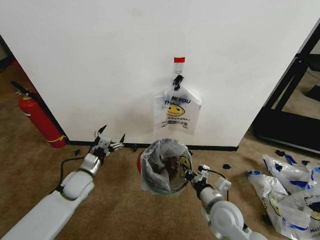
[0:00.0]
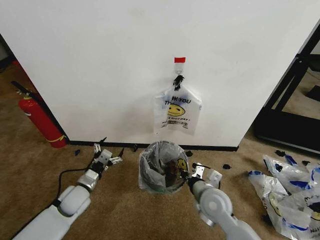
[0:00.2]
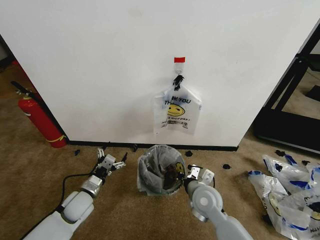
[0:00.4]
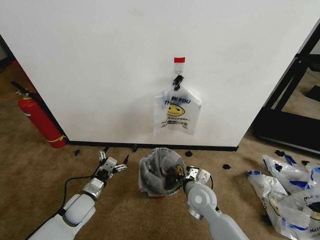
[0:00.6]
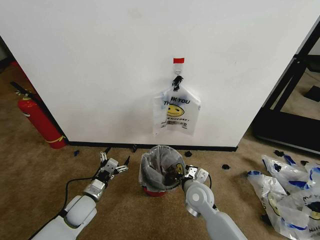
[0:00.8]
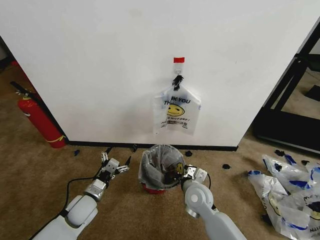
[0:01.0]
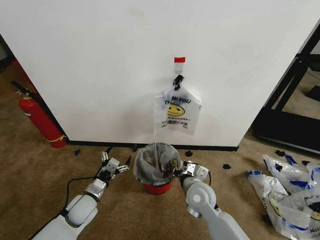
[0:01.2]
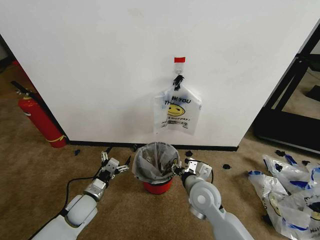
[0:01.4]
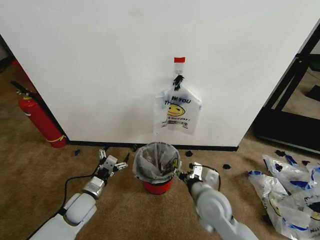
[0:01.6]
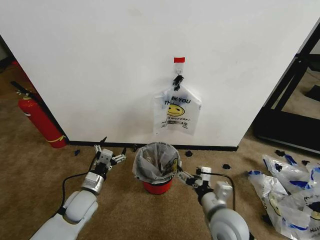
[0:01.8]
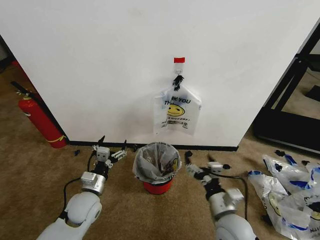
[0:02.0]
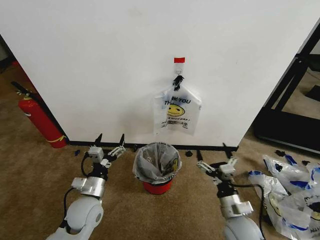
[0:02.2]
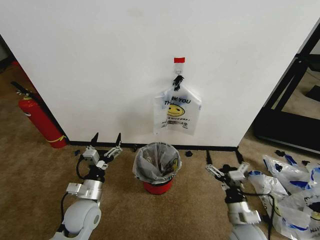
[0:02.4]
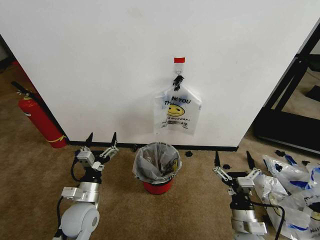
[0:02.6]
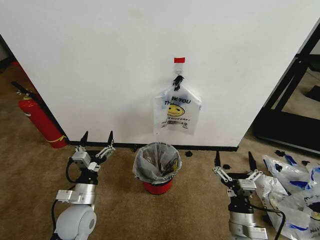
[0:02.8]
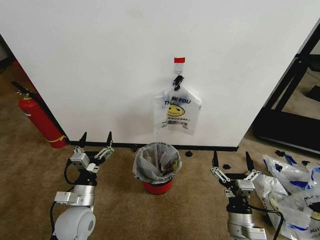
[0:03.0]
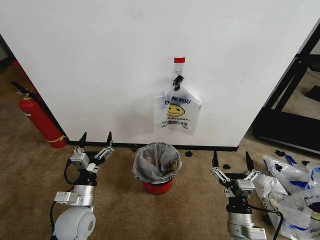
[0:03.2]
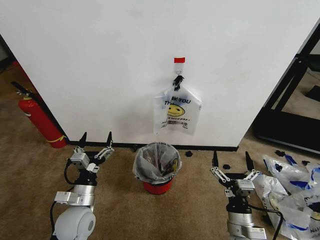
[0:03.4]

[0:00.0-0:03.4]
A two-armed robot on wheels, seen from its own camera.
Task of the whole recording: Pick up the garbage bag from the wall and place it over the trash bin.
0:00.0 to 0:01.6: The right gripper shifts by roughly 5 cm, and opens up, while the left gripper shifts about 5 cm backward.
0:01.6 to 0:03.4: The right gripper shifts roughly 15 cm backward, to the right and downward. Meanwhile the left gripper is displaced backward and upward by some 10 cm.

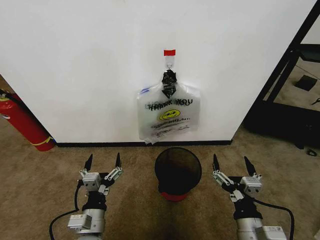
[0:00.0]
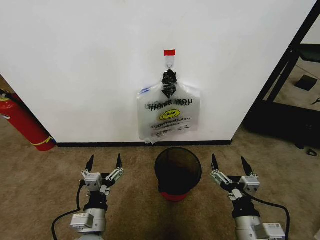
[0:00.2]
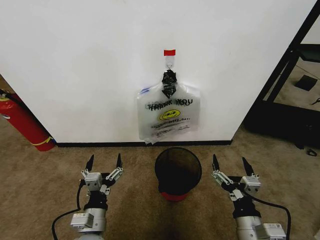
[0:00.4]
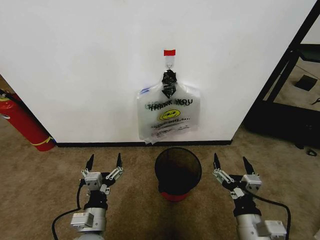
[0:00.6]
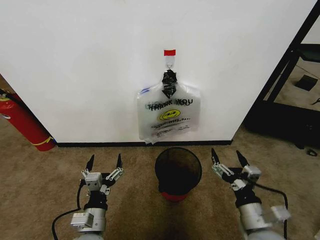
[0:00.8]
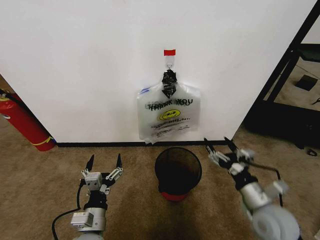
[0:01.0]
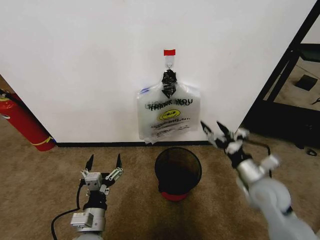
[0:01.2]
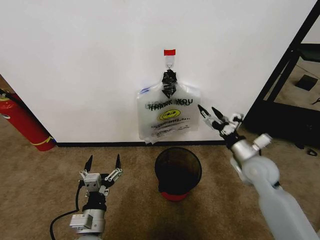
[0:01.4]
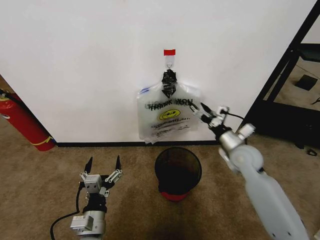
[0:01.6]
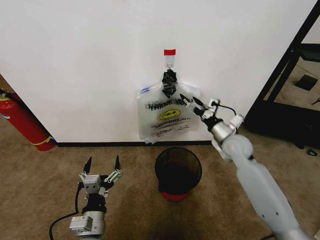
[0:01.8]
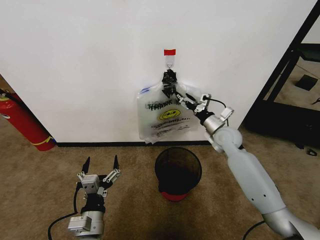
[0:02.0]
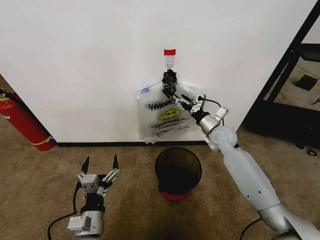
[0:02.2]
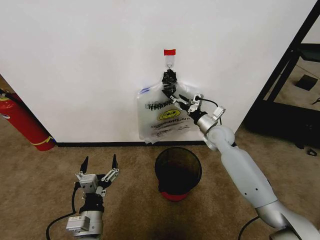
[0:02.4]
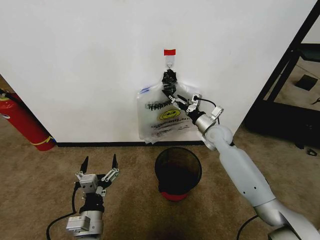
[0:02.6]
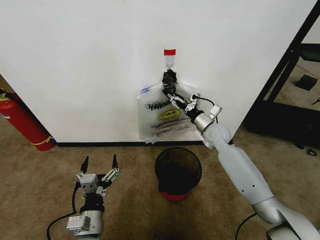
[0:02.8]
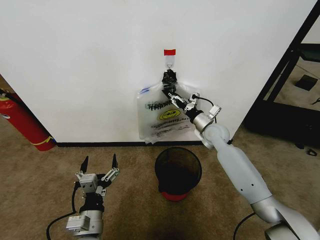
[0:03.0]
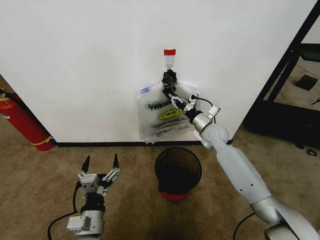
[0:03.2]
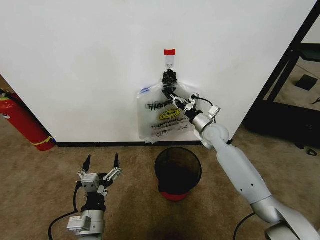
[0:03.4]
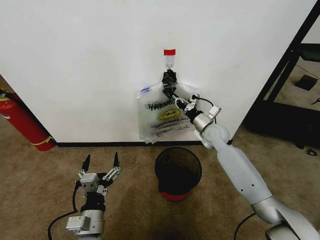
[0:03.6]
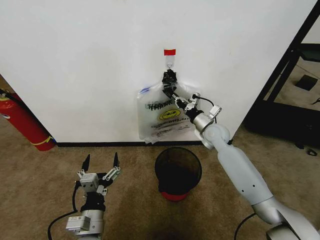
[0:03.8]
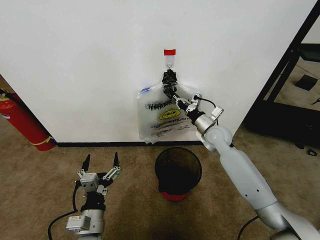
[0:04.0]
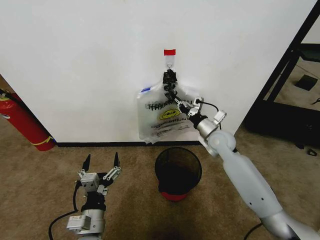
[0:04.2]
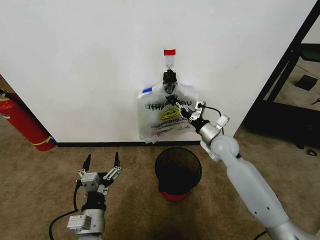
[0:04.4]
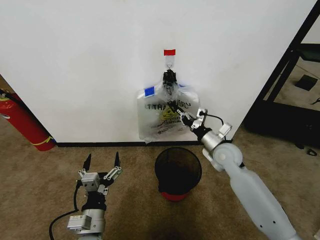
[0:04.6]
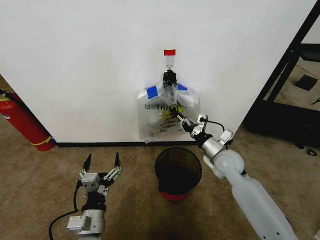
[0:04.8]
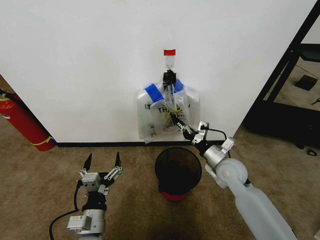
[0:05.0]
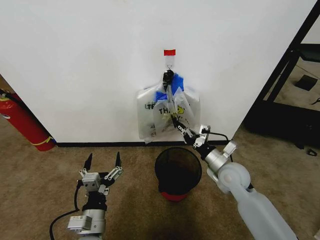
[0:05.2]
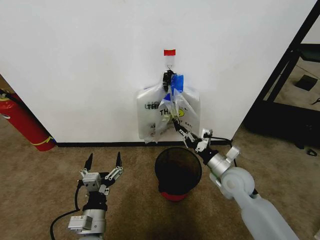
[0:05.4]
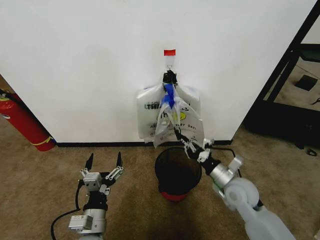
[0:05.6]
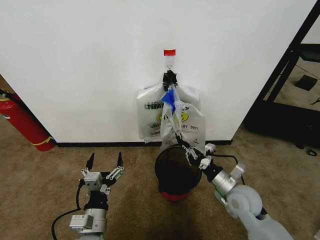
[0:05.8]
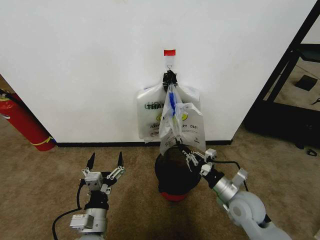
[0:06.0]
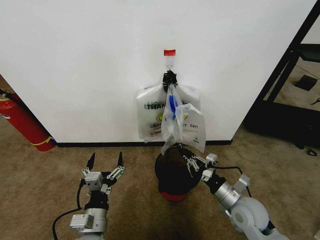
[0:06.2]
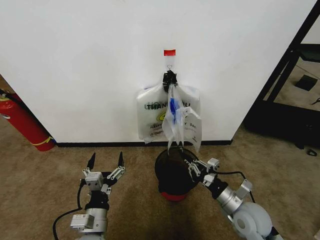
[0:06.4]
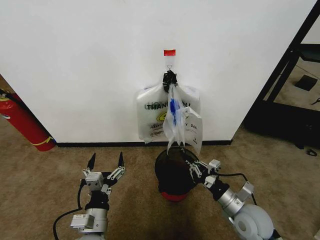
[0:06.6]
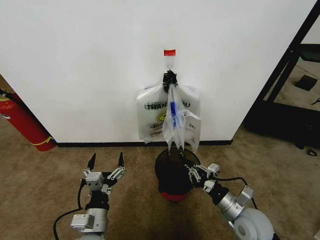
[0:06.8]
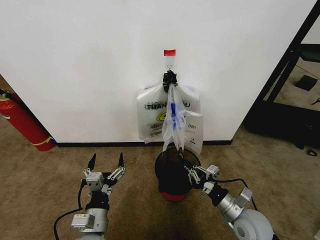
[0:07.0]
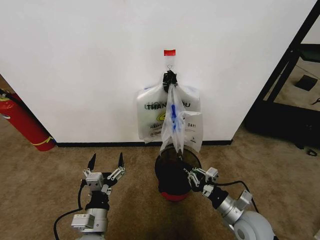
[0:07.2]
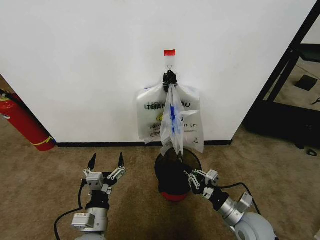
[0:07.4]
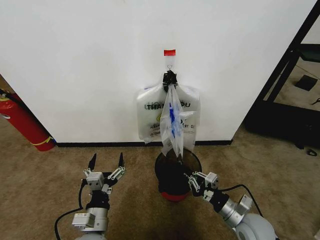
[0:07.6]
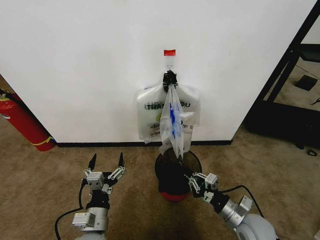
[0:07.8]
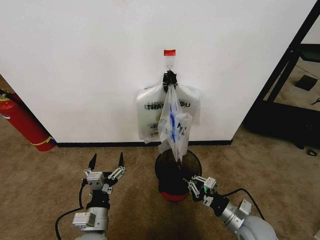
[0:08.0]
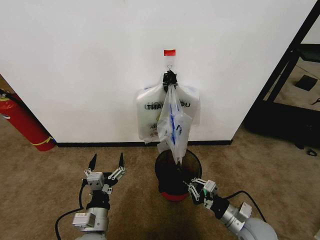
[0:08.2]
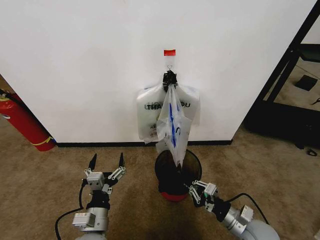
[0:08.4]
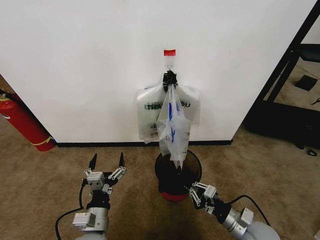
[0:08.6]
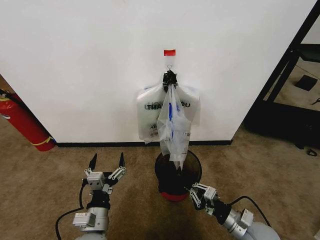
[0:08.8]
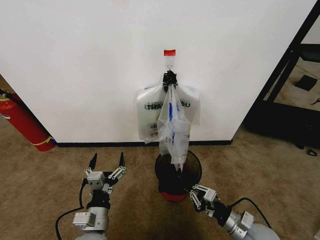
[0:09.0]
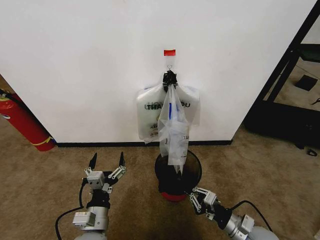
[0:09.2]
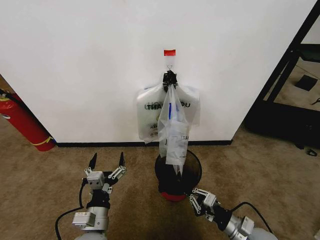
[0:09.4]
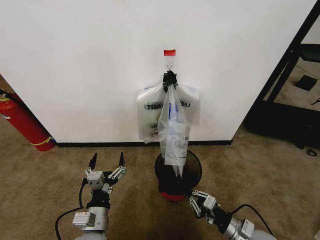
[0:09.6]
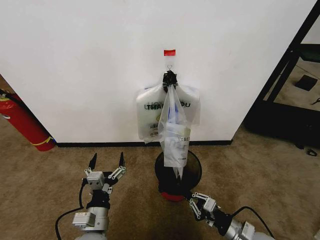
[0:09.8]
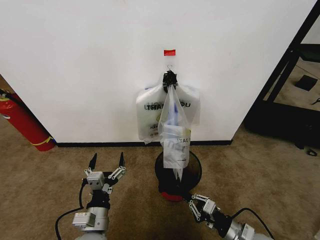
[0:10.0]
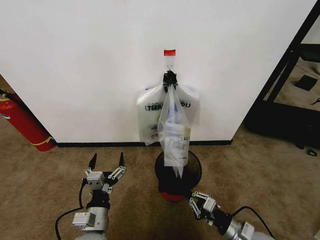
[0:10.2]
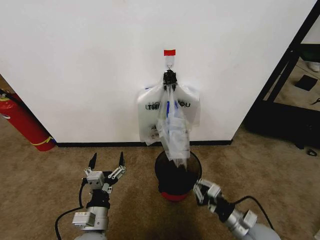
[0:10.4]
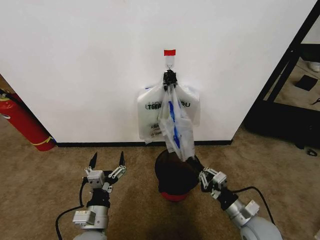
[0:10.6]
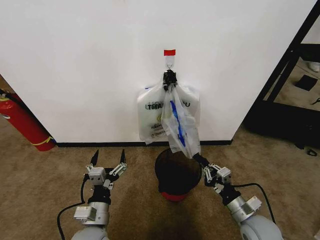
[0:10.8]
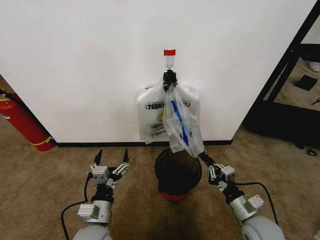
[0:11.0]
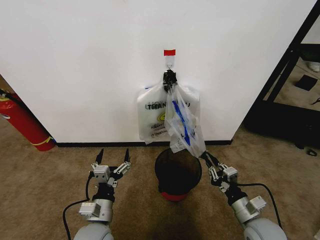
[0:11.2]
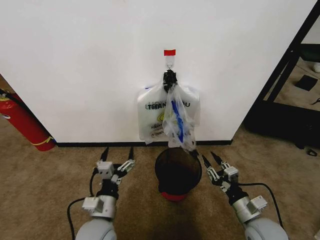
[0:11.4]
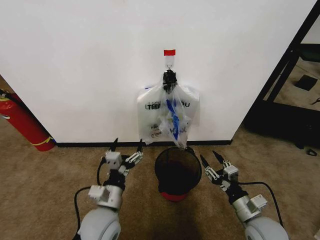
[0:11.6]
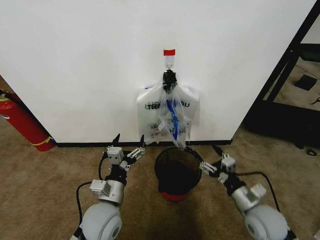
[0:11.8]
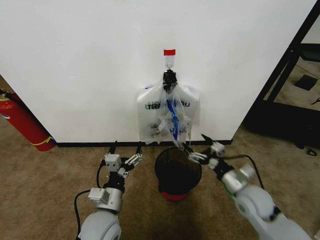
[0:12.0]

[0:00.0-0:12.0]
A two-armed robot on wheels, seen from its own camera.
Task of the whole recording: Pick up the garbage bag from the wall and place it over the trash bin.
0:01.6 to 0:03.0: The right gripper travels forward and to the left by roughly 15 cm, and closes.
0:03.0 to 0:04.4: The right gripper heads backward, covering approximately 5 cm, and closes up.
0:04.4 to 0:06.0: The right gripper shifts some 20 cm backward.
0:06.0 to 0:07.6: The right gripper heads backward, covering about 5 cm.
0:07.6 to 0:10.4: There are only small adjustments of the grippers.
0:10.4 to 0:12.0: The right gripper heads forward and upward, covering roughly 10 cm, and opens, while the left gripper ends up about 5 cm from where it was.

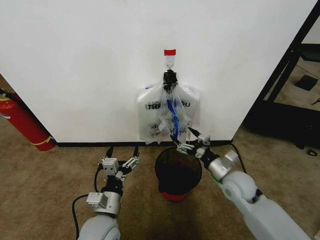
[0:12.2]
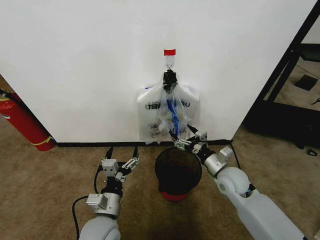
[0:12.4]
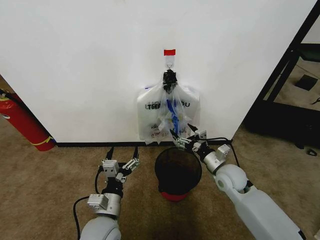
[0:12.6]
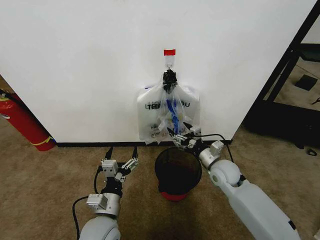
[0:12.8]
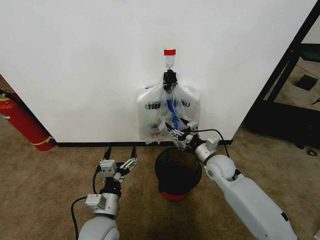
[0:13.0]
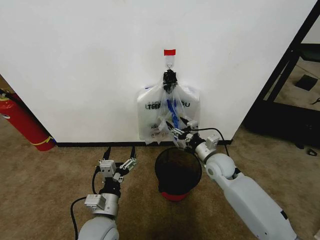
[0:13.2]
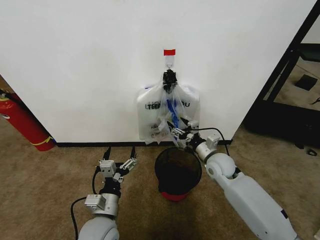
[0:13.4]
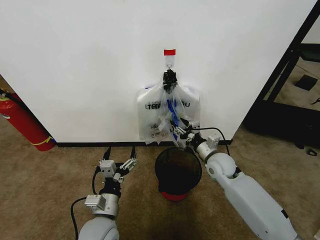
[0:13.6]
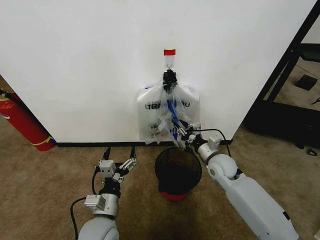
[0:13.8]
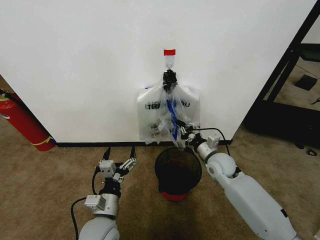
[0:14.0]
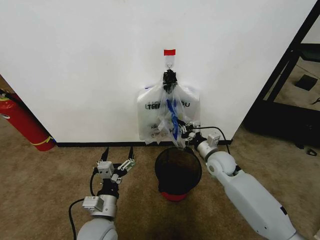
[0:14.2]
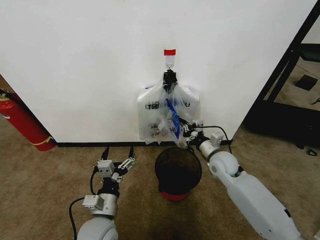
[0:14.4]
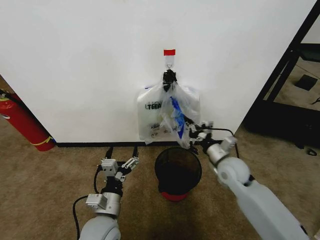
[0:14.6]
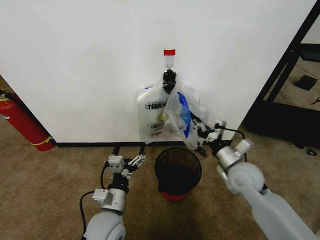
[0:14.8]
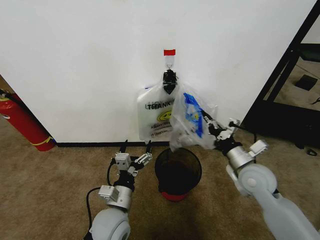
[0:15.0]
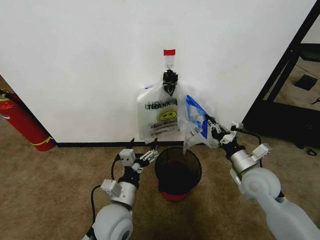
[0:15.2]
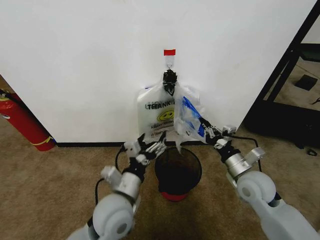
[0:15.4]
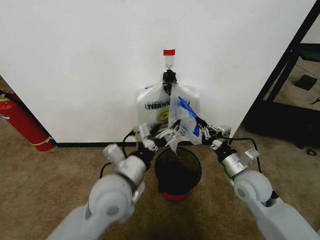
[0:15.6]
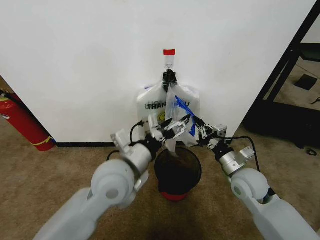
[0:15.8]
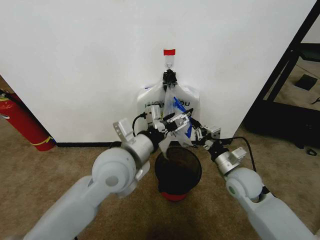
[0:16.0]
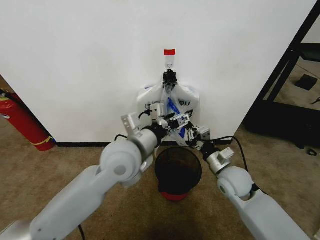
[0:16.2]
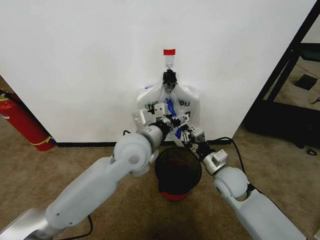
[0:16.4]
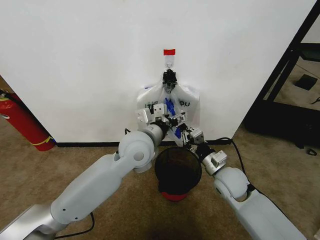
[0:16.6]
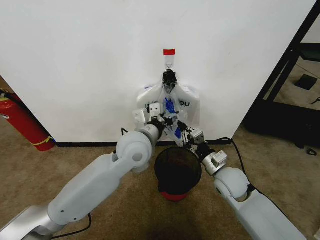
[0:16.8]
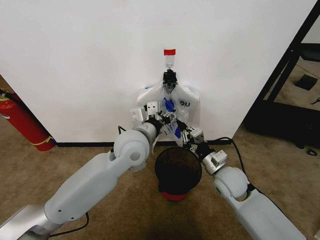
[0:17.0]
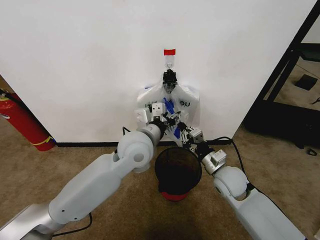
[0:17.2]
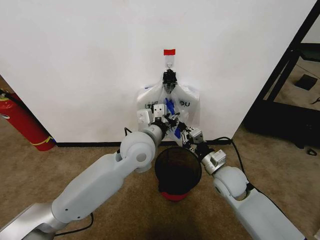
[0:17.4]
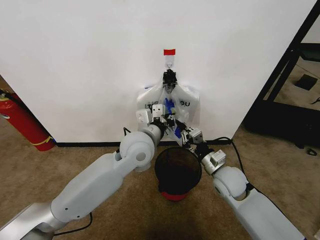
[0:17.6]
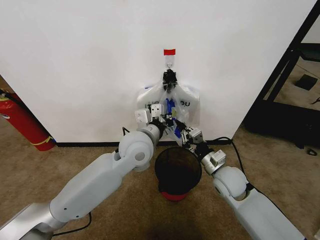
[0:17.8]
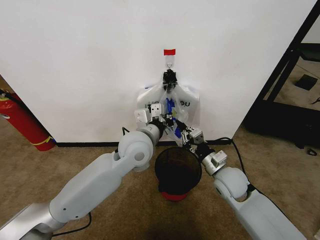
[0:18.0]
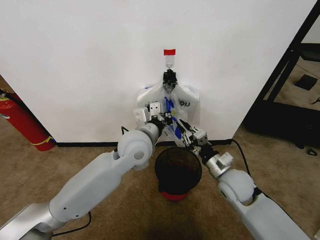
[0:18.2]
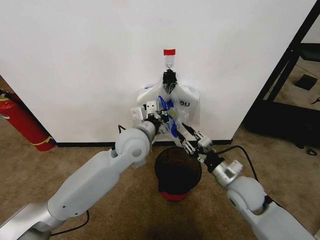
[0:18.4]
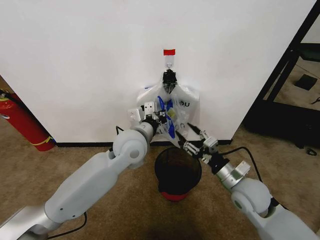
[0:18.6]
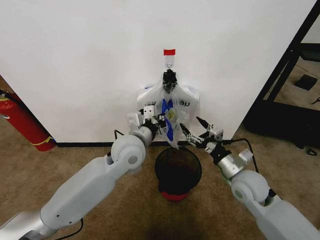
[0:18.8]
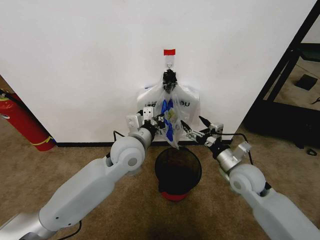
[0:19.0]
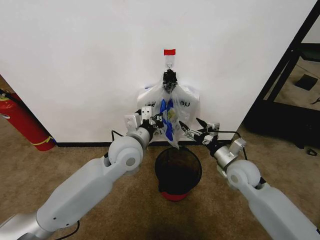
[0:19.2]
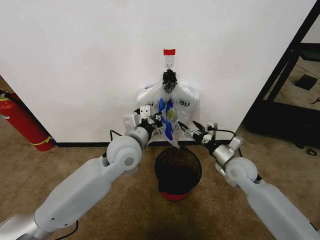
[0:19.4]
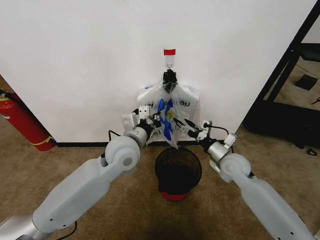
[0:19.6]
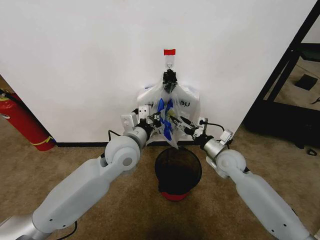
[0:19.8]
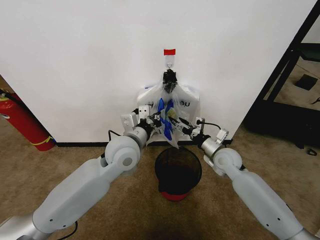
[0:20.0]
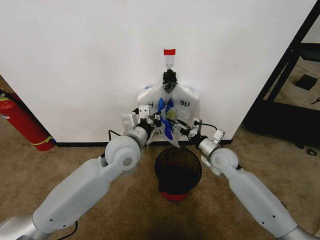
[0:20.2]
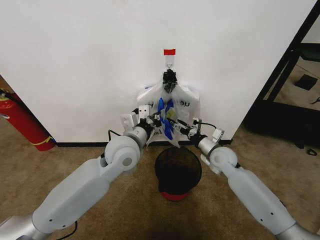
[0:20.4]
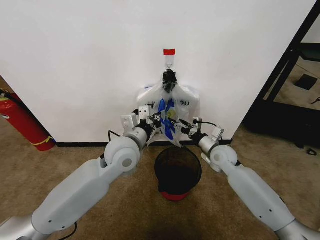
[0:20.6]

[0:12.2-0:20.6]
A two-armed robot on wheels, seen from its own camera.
Task of the whole recording: Pick up the garbage bag from the wall and place it over the trash bin.
0:12.2 to 0:13.6: The right gripper moves forward, roughly 10 cm, and closes.
0:13.6 to 0:15.0: The right gripper shifts roughly 10 cm backward, upward and to the right, and closes its fingers.
0:15.0 to 0:16.4: The left gripper is displaced upward and forward by about 20 cm. Meanwhile the right gripper heads to the left, covering roughly 5 cm.
0:16.4 to 0:17.8: The left gripper closes its fingers.
0:17.8 to 0:19.2: The right gripper is displaced to the right by approximately 5 cm, and opens its fingers.
0:19.2 to 0:20.6: The right gripper travels forward by roughly 10 cm.
